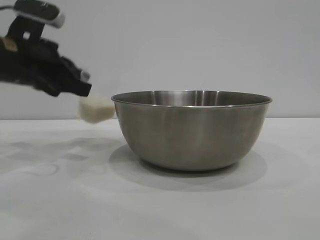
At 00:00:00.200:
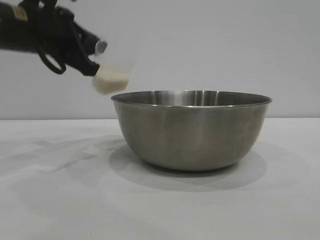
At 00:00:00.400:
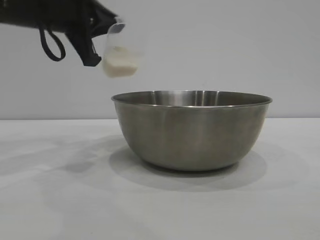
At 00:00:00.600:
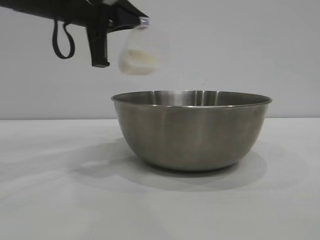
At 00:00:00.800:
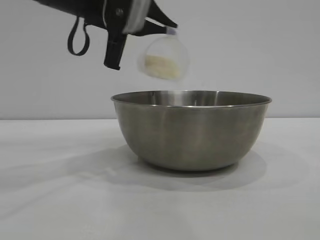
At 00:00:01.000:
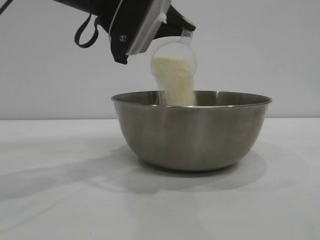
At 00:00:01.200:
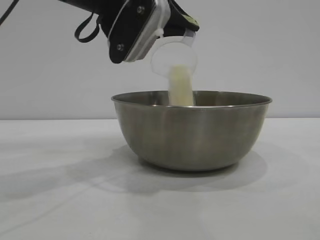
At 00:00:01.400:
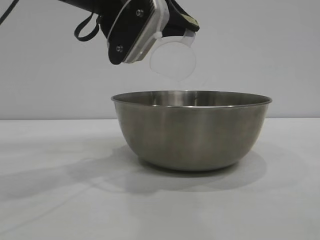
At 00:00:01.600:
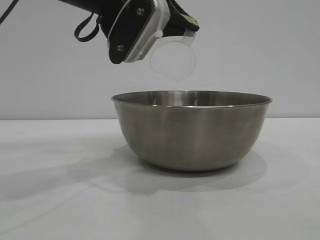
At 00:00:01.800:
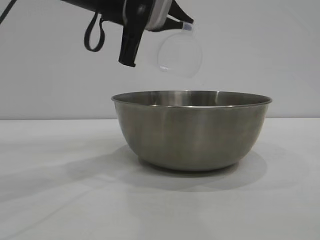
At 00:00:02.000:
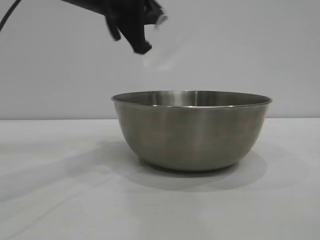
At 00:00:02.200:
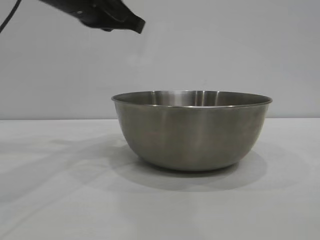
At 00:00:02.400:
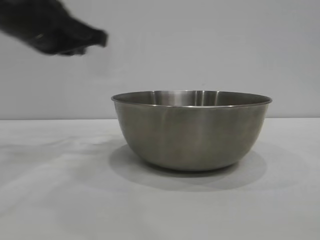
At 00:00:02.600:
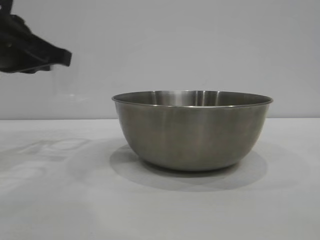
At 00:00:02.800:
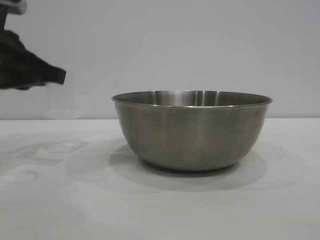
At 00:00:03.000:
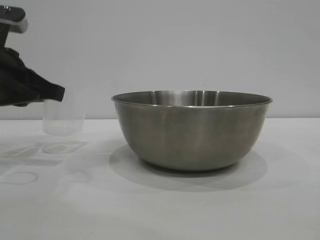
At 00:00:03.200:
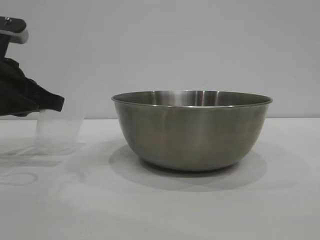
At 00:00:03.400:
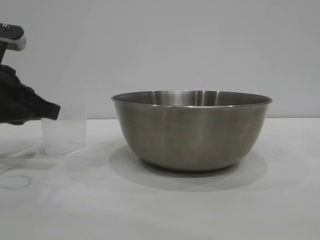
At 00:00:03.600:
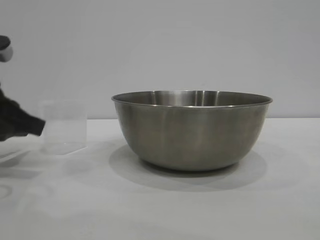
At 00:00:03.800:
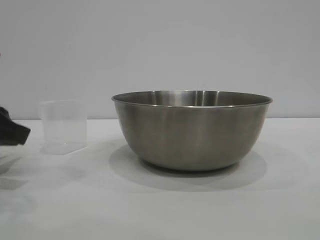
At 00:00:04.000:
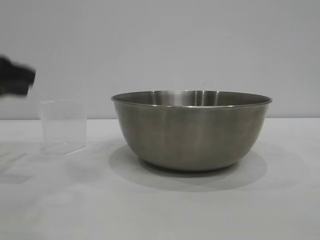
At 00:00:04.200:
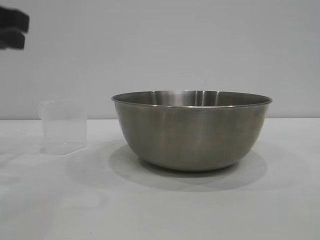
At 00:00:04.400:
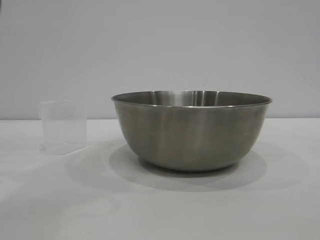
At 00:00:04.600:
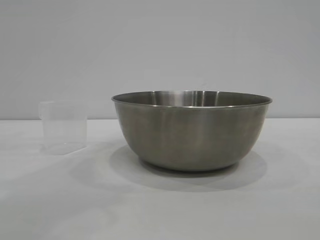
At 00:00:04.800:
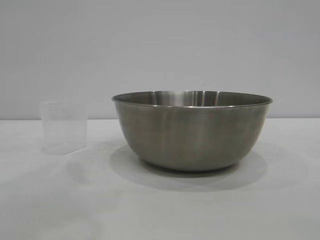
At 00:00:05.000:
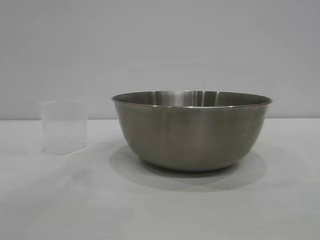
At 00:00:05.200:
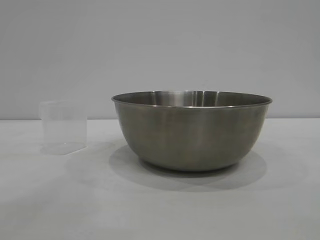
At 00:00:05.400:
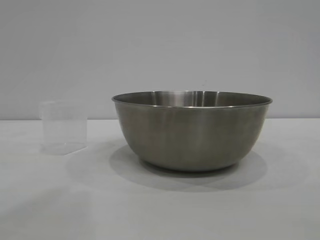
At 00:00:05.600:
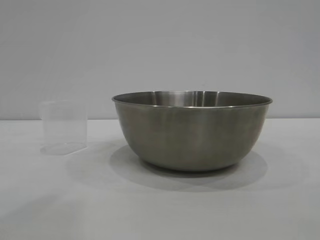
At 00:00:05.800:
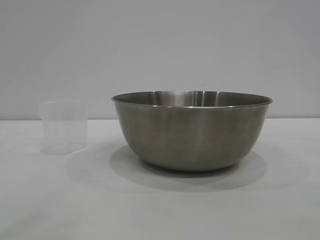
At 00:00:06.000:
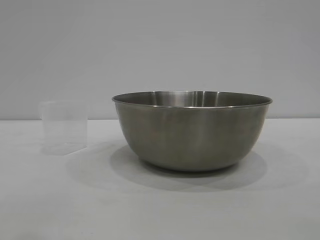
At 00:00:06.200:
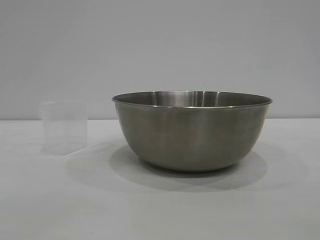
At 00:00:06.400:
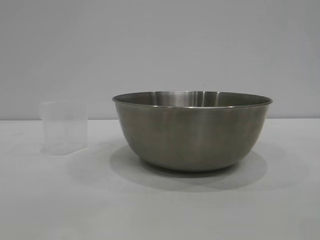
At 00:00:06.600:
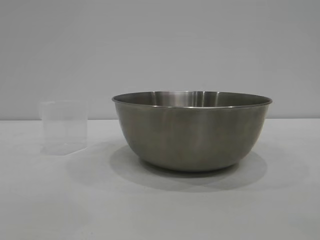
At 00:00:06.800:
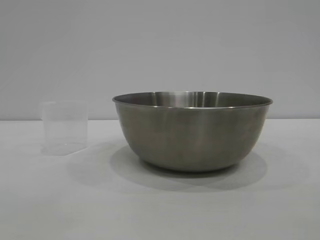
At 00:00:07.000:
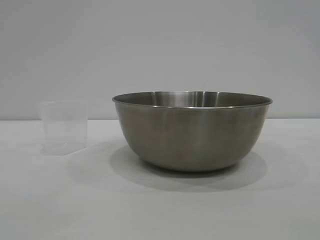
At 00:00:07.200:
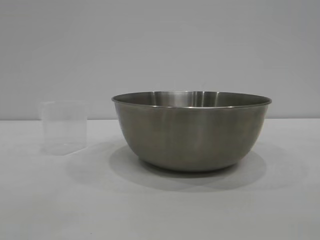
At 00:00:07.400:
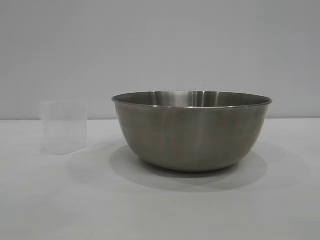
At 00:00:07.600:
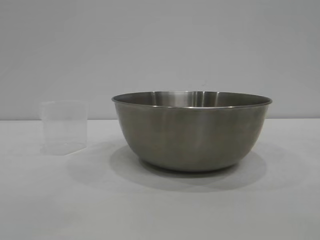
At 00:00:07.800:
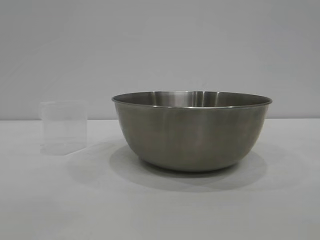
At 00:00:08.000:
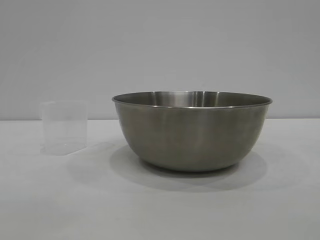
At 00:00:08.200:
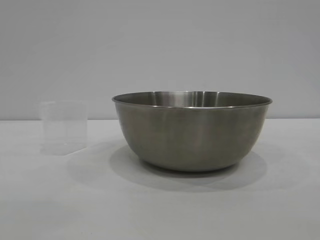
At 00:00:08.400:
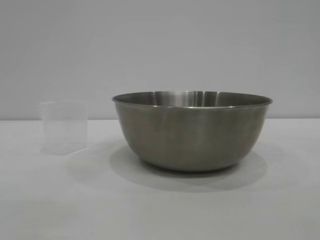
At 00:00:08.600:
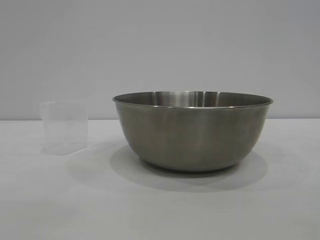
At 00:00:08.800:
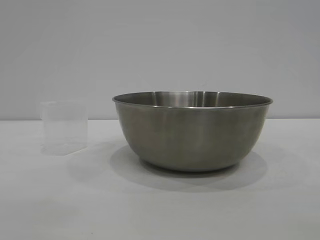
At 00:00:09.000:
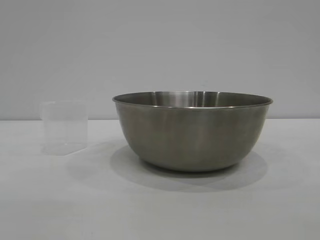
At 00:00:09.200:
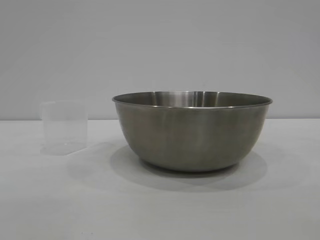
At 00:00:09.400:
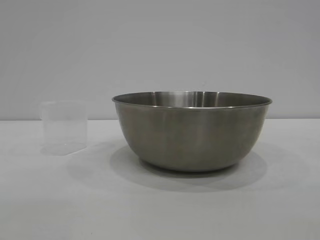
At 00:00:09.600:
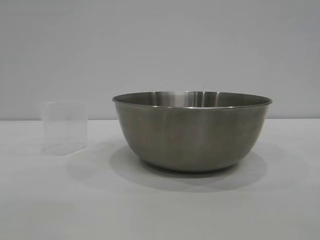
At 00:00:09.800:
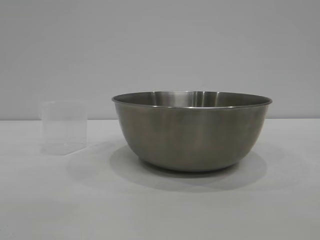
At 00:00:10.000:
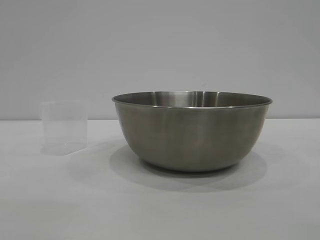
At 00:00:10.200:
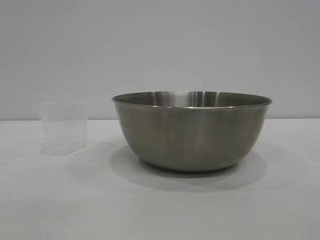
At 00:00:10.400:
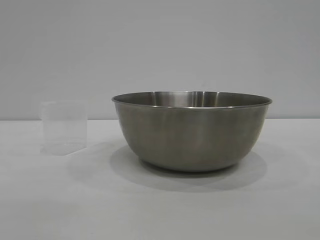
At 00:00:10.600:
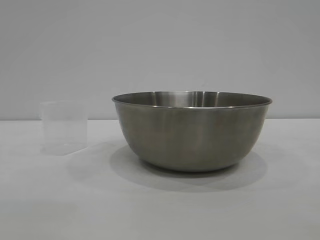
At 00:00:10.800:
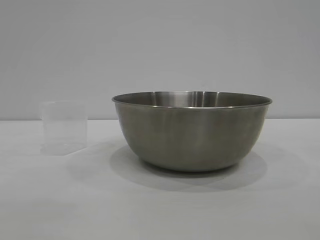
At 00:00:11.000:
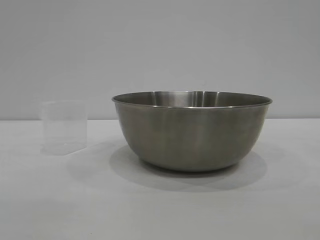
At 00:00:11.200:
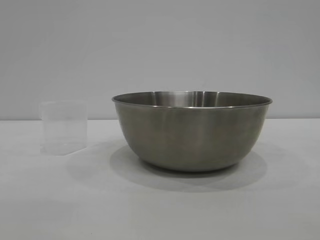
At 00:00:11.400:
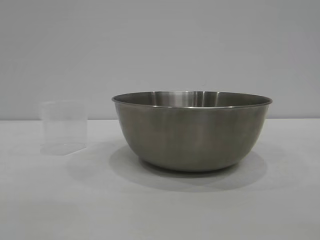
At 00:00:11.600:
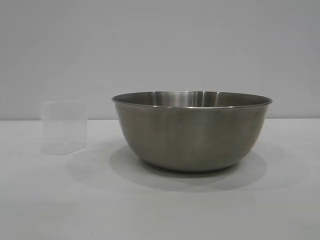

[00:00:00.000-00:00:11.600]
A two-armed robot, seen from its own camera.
Task of the whole recording: the right gripper grasp the rice container and place it in the center of the table, the left gripper grasp the rice scoop and pour the rice into the rice container.
Step, 00:00:00.000 to 00:00:01.600: Pour the rice from the cup into the bowl with the left gripper.
Step, 00:00:01.800 to 00:00:03.600: Place the cup on the table with the left gripper.
